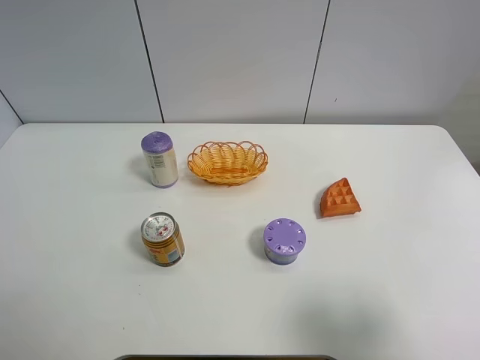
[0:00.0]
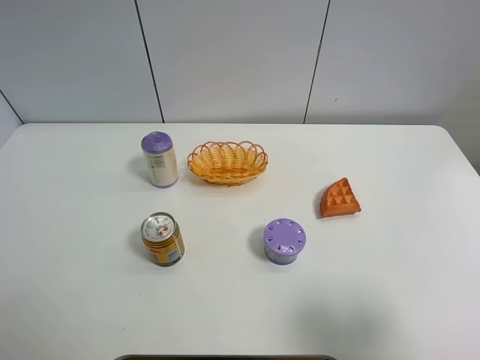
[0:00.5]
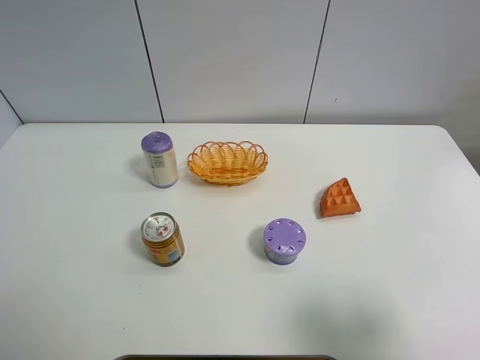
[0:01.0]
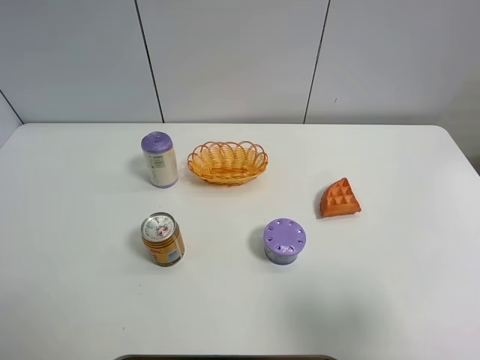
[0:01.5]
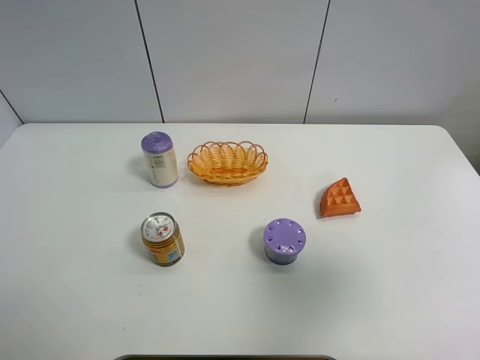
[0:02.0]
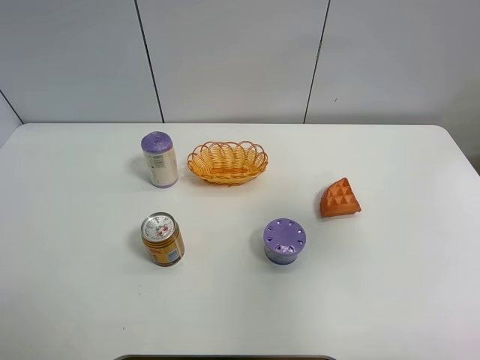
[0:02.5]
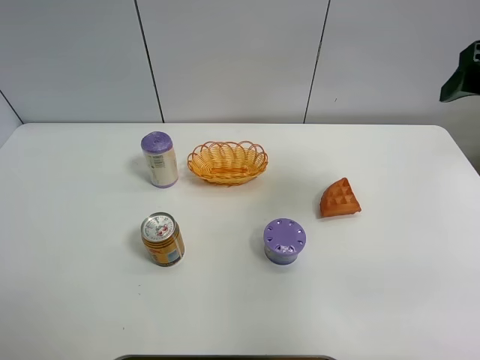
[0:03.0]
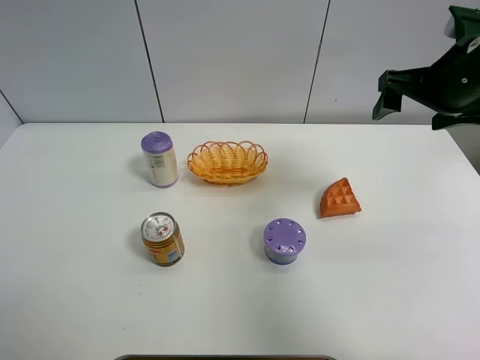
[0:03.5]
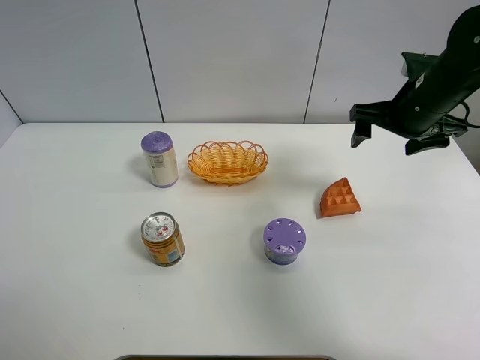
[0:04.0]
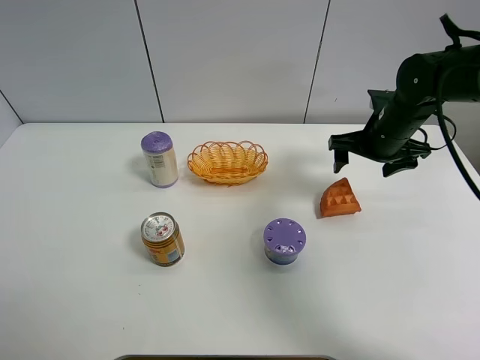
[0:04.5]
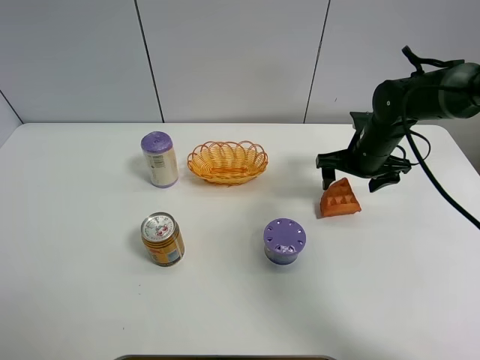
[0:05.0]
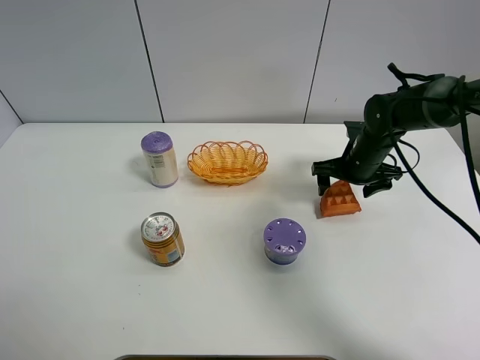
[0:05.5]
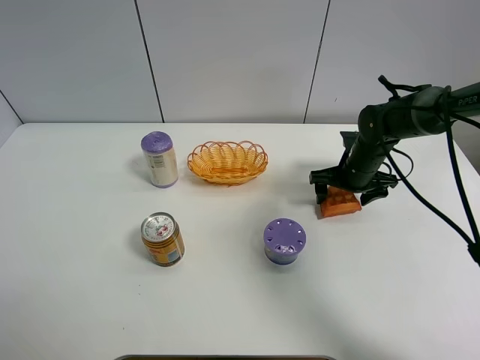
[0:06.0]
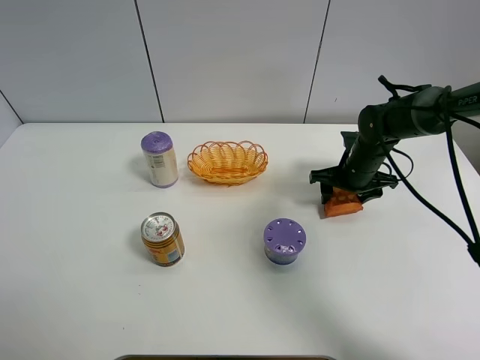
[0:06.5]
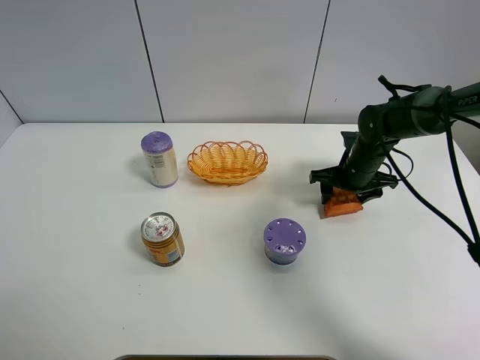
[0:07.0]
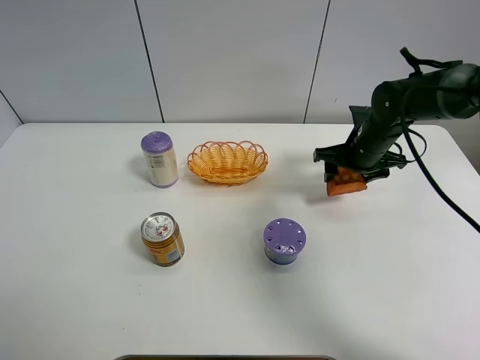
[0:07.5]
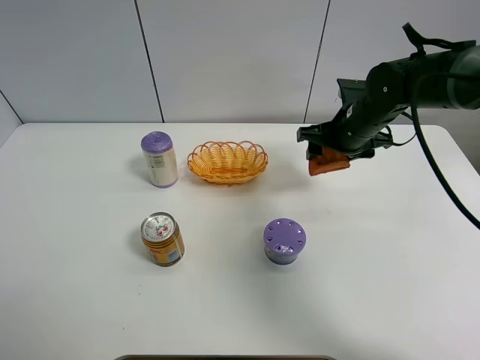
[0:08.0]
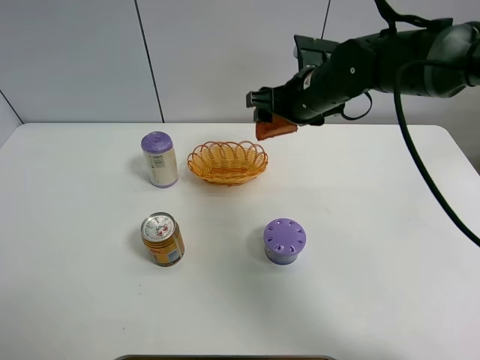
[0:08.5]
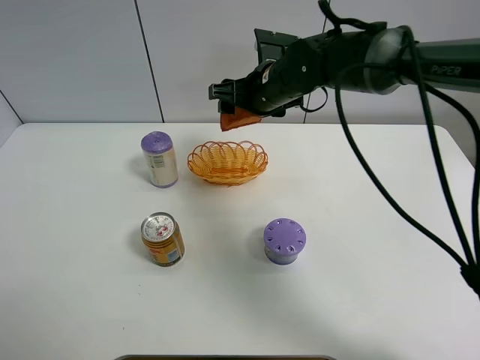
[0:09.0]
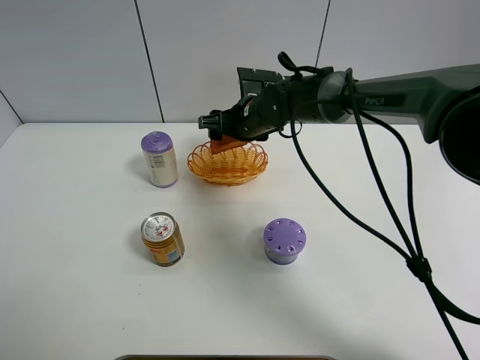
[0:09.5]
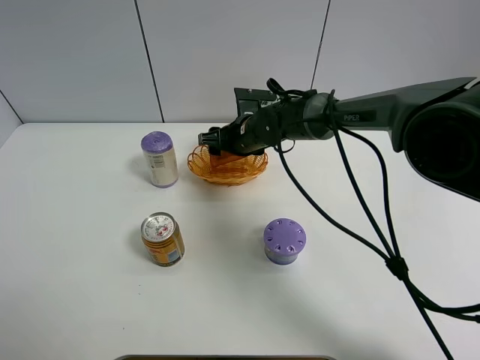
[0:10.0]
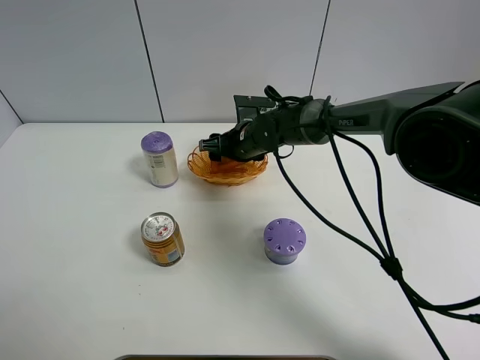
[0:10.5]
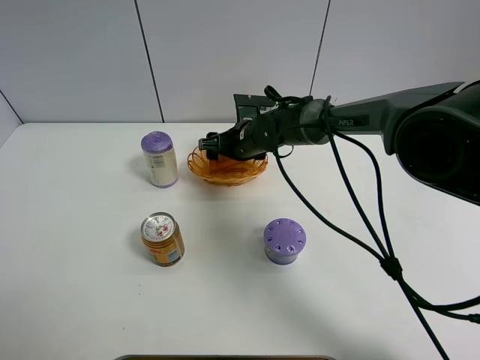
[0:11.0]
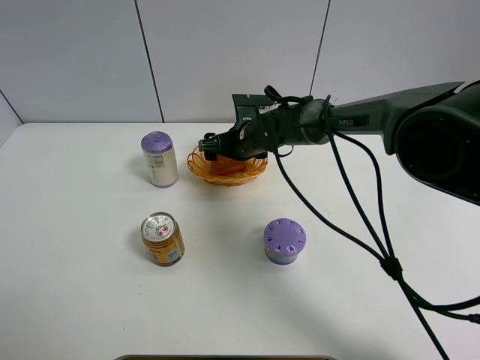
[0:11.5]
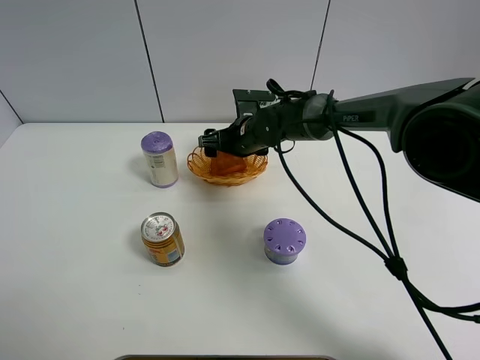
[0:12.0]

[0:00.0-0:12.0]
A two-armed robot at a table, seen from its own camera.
Task of the whole recording: Put the bakery in the basket.
Step, 0:00.0 to 0:06.0: Grasp the bread with right gripper.
0:00.0 to 0:02.0: The right gripper travels upward and forward by some 10 cm.
0:02.0 to 0:04.0: The right gripper is displaced forward and downward by some 30 cm.
0:04.0 to 0:06.0: The right gripper goes some 15 cm downward.
0:06.0 to 0:08.0: The right gripper moves upward, roughly 10 cm, and closes up.
0:08.0 to 0:10.0: The right gripper travels to the left and downward by roughly 15 cm.
0:10.0 to 0:12.0: The right gripper opens its fingers.

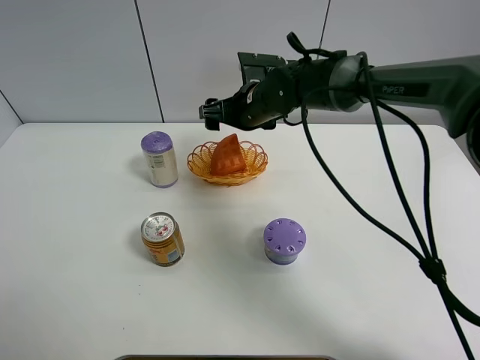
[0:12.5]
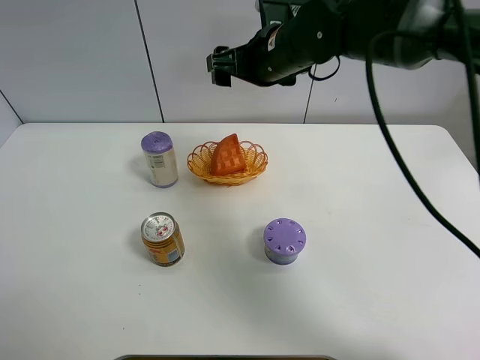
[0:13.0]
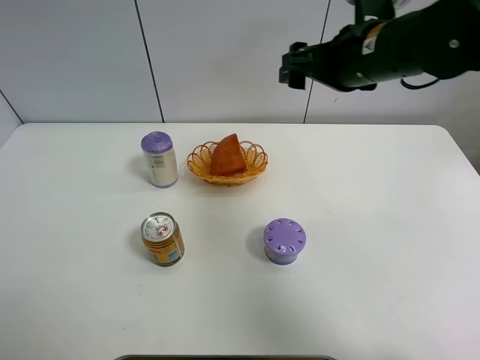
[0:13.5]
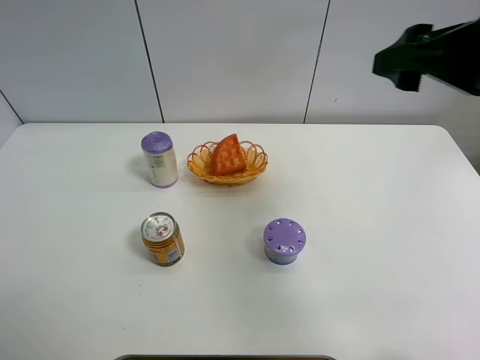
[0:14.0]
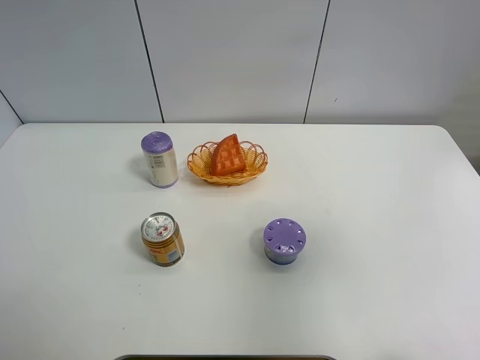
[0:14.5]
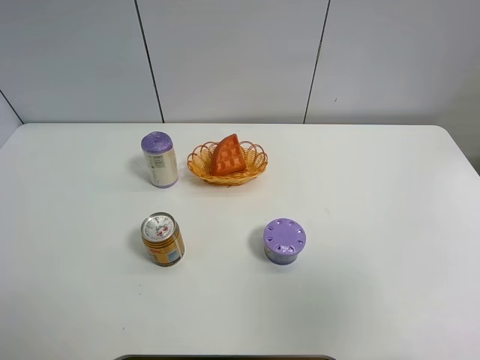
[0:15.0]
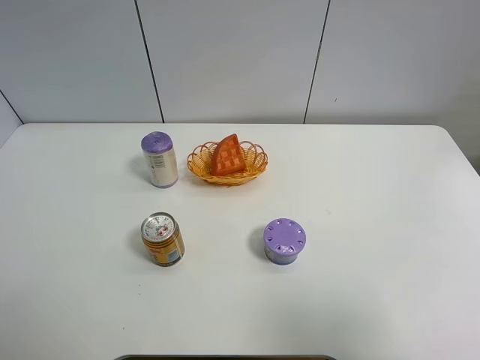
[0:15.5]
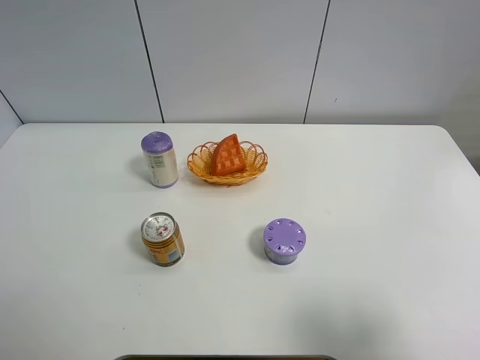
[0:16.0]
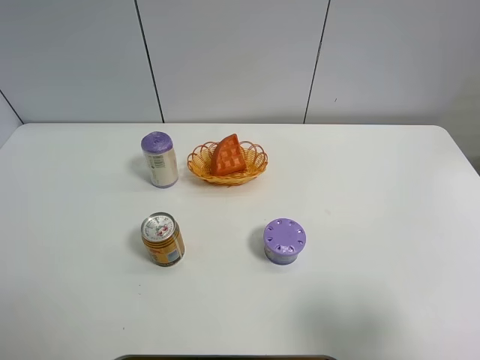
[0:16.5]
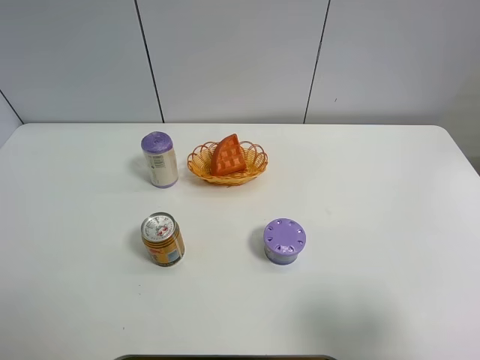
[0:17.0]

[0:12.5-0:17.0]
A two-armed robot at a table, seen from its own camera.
Task of the whole recording: Put the bakery in the basket.
0:12.5 to 0:14.5: The right gripper travels backward, to the right and upward by about 50 cm.
0:14.5 to 0:17.0: The right gripper heads downward and backward, covering some 15 cm.
